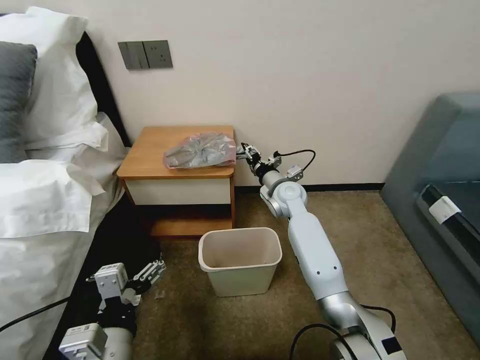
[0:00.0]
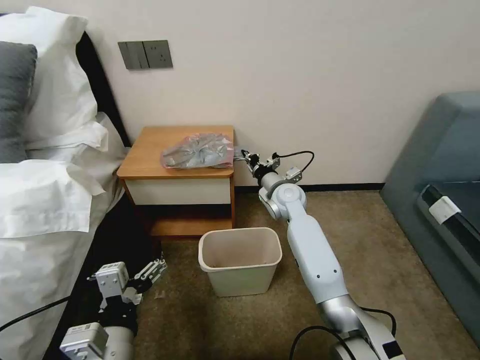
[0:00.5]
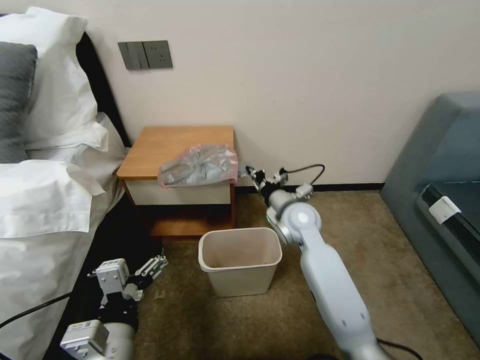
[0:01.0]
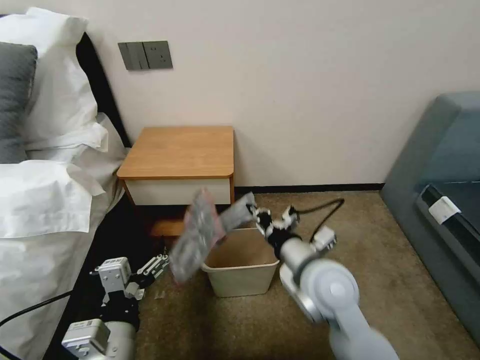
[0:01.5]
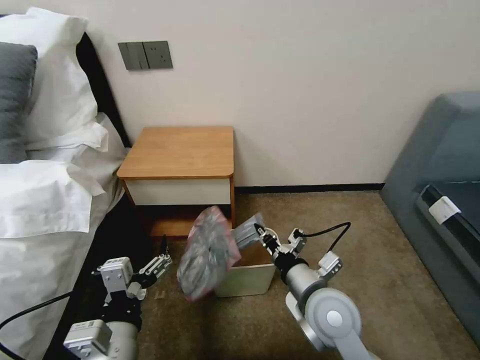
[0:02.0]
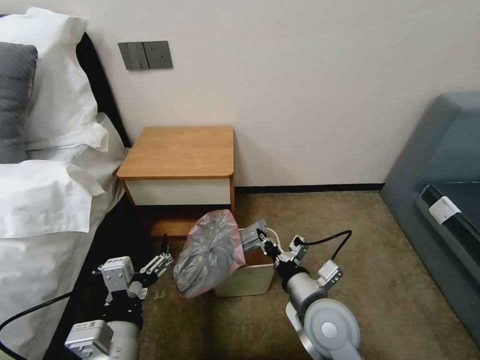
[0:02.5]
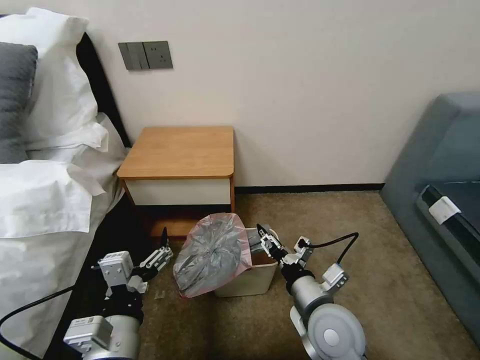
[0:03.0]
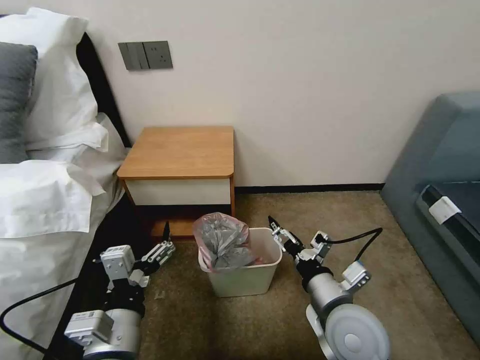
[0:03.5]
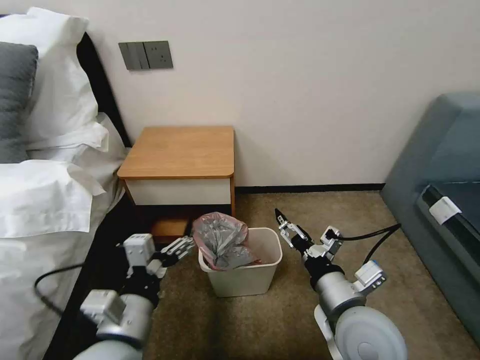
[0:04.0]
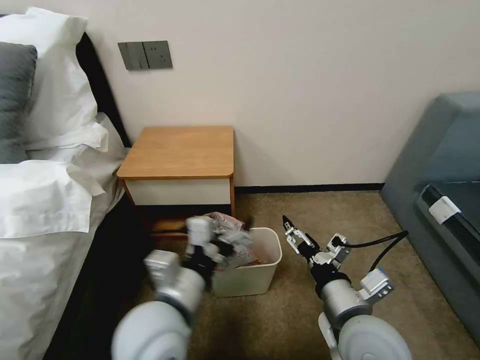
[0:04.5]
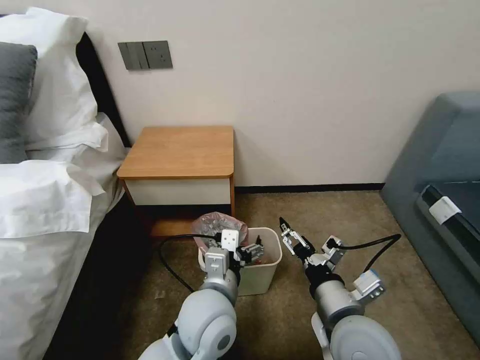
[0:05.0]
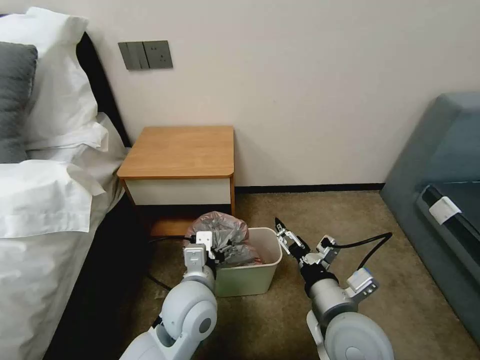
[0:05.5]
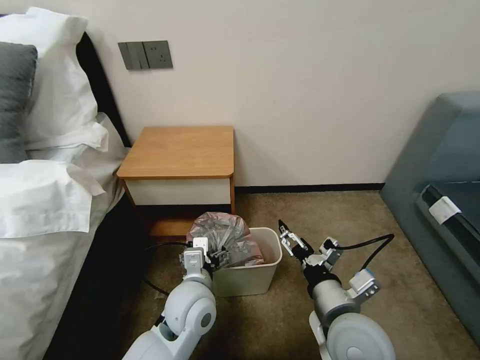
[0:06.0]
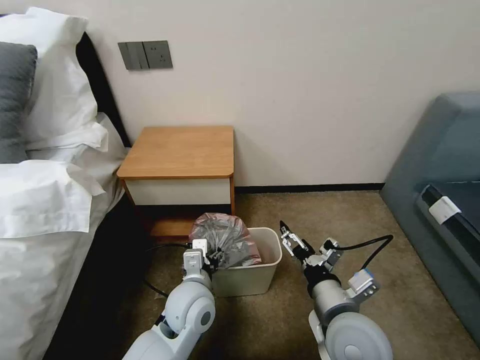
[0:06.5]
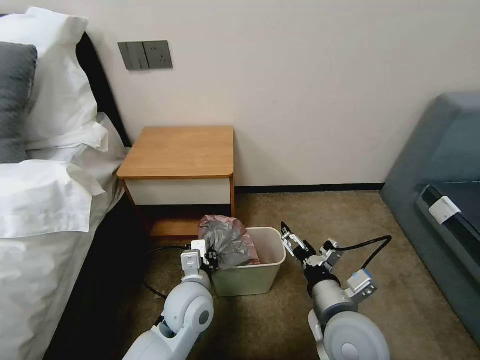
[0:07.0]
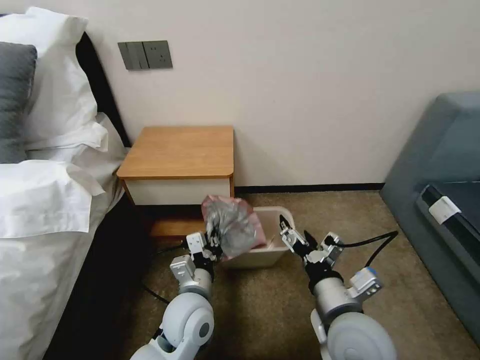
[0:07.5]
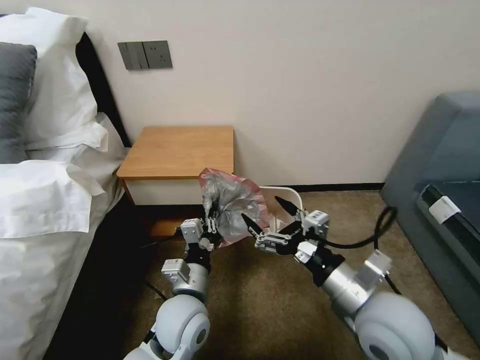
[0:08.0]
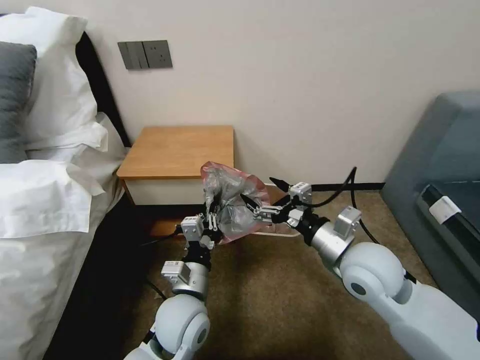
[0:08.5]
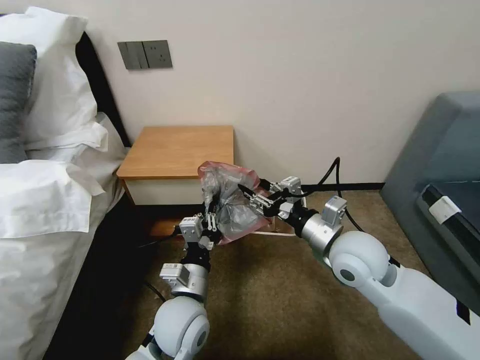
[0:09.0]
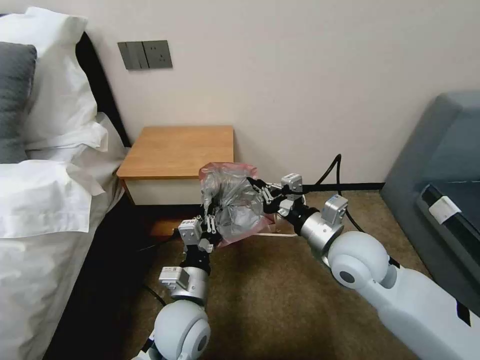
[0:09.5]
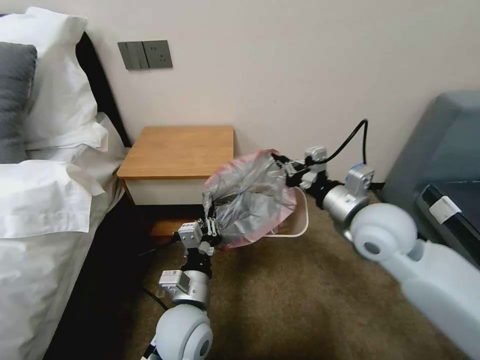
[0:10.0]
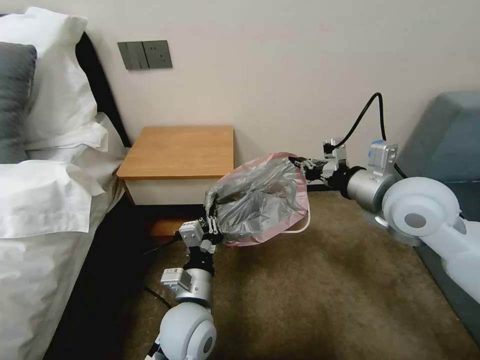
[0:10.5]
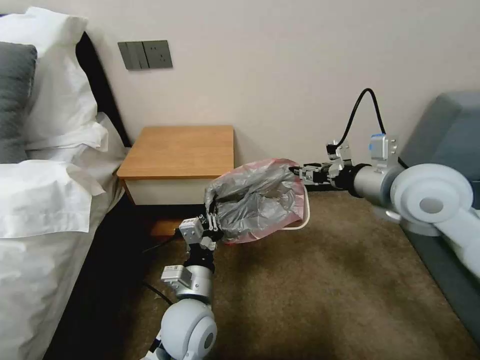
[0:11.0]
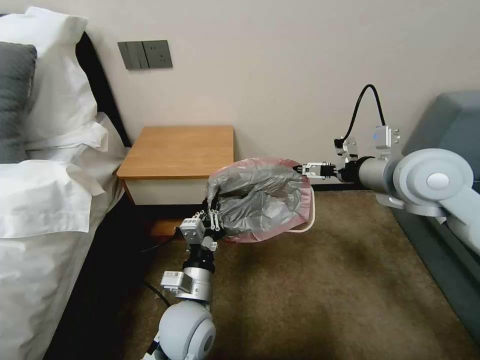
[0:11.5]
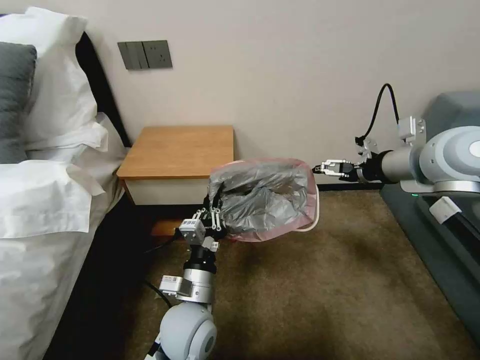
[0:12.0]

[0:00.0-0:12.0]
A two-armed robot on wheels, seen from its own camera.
Task of the whole recording: Pick up the garbage bag from the table and place it over the trash can.
0:00.0 to 0:02.0: The right gripper travels backward by roughly 30 cm, and closes its fingers.
0:02.0 to 0:04.0: The right gripper changes place by some 5 cm, and opens its fingers.
0:04.0 to 0:06.0: The left gripper is displaced forward, to the right and downward by some 15 cm.
0:06.0 to 0:08.0: The left gripper closes its fingers; the right gripper is displaced upward by some 5 cm.
0:08.0 to 0:10.0: The right gripper travels forward and upward by some 15 cm, and closes.
0:10.0 to 0:12.0: The right gripper moves upward, to the right and forward, about 15 cm, and opens up.

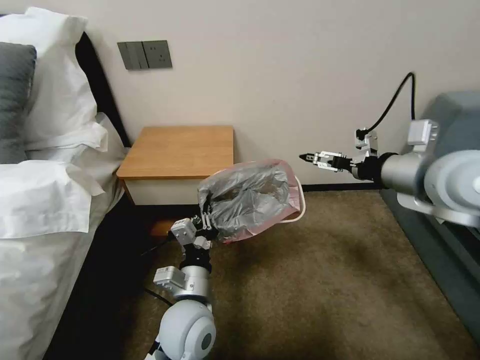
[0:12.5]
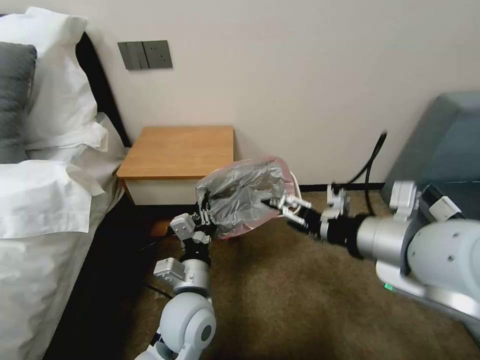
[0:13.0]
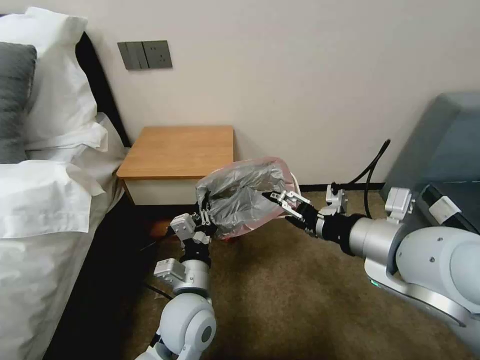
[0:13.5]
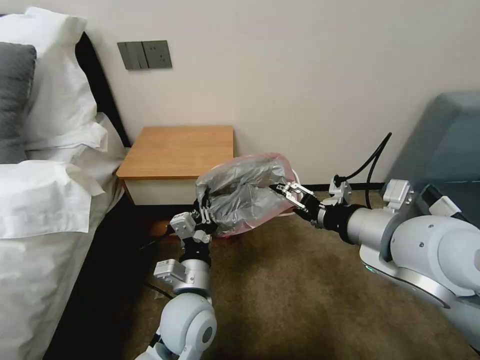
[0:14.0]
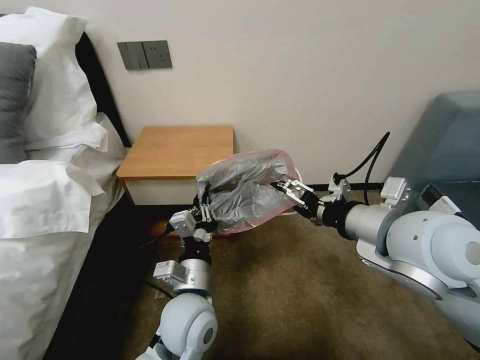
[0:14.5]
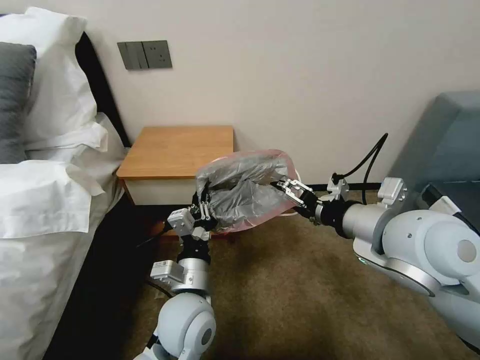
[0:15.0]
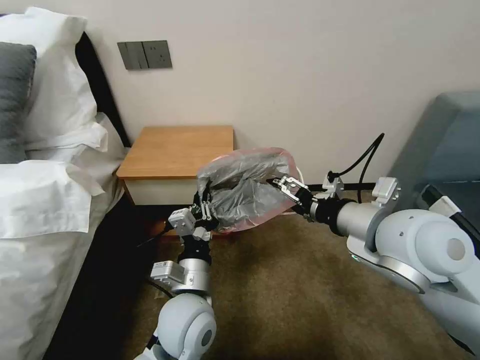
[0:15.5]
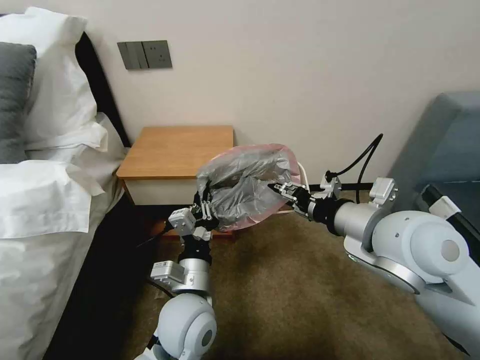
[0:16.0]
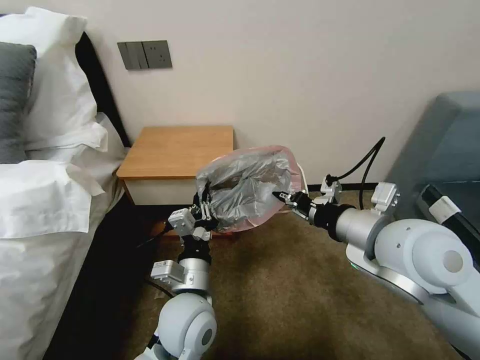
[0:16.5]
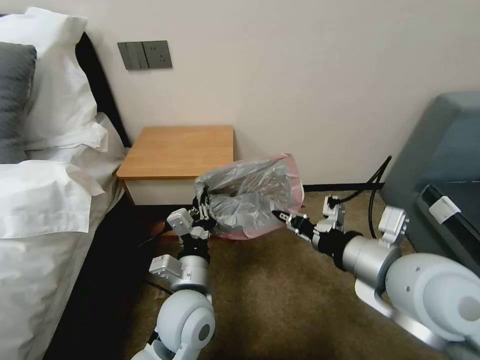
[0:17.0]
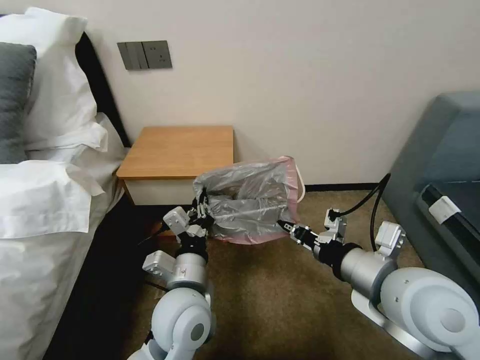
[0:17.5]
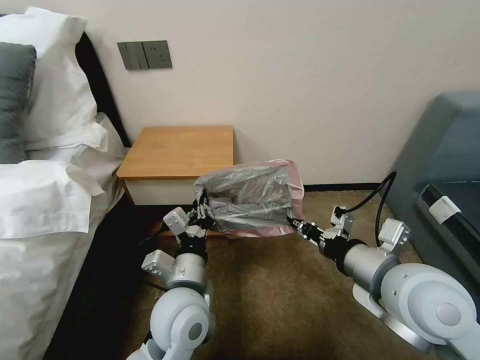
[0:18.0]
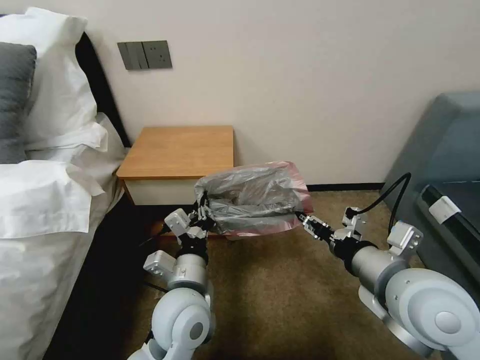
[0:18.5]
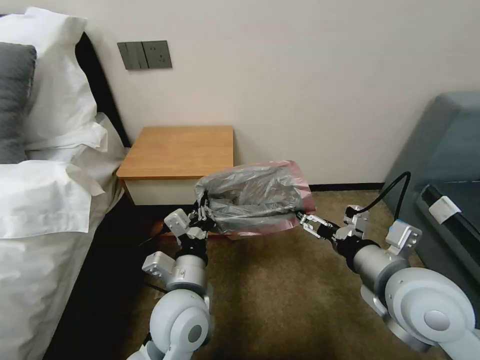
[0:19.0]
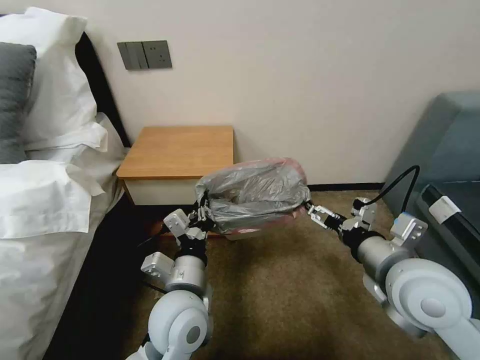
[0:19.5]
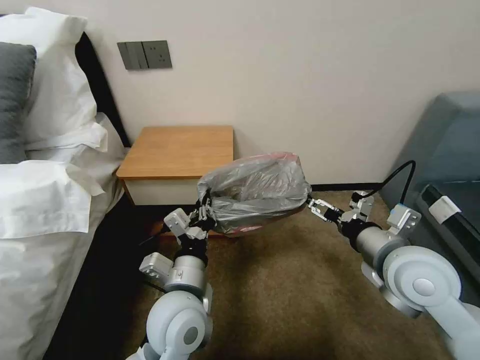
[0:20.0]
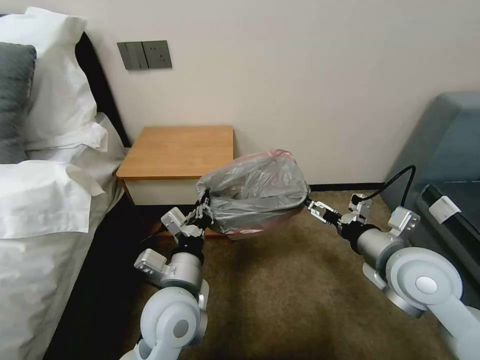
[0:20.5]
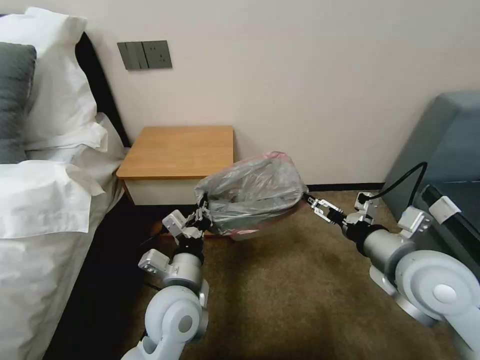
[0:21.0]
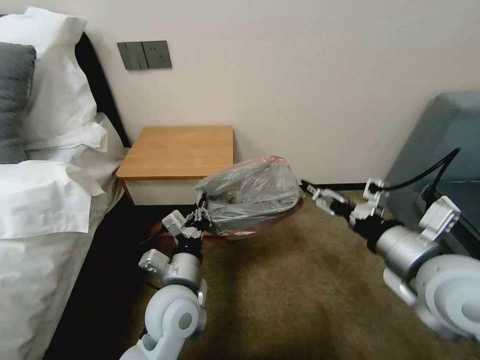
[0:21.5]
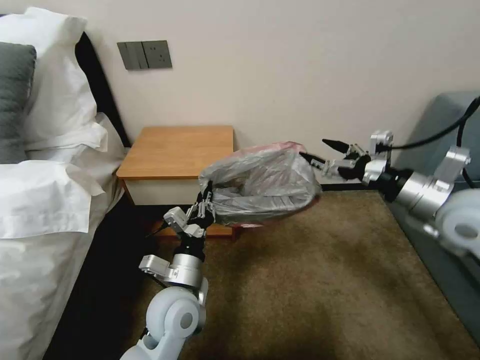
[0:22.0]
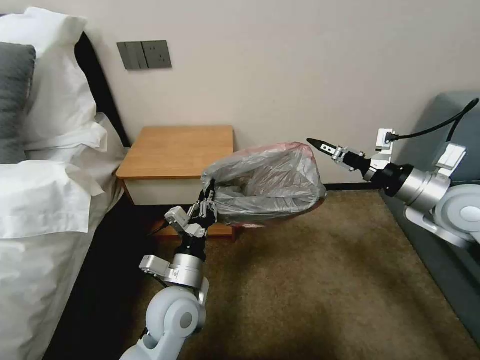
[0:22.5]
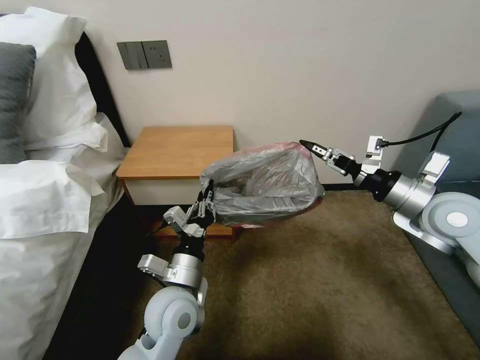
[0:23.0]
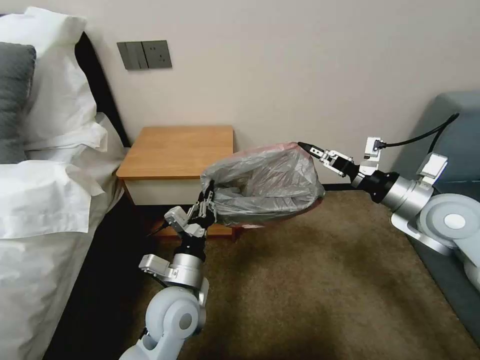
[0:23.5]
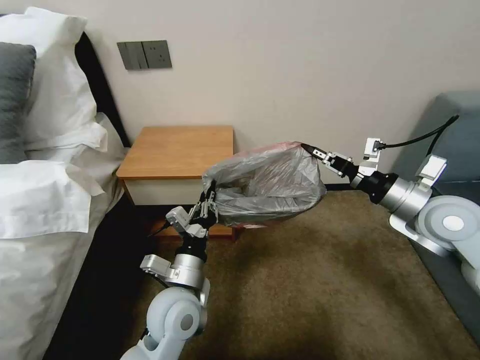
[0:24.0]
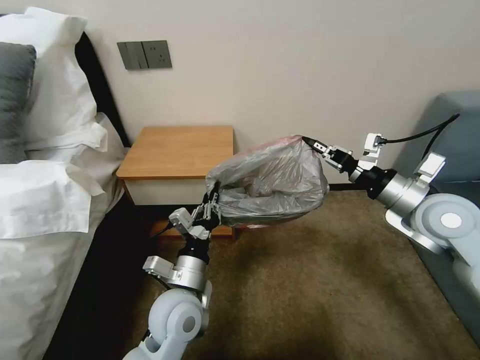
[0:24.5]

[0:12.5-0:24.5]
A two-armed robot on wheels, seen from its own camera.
Task of the whole recording: Pick up the garbage bag from the table and place it over the trash can.
0:12.5 to 0:14.5: The right gripper heads to the left and backward, covering roughly 10 cm.
0:14.5 to 0:16.5: The right gripper closes.
0:16.5 to 0:18.5: The right gripper travels downward by approximately 5 cm, and opens up.
0:18.5 to 0:20.5: The right gripper travels forward by some 5 cm, and opens its fingers.
0:20.5 to 0:22.5: The right gripper is displaced to the right, forward and upward by some 15 cm.
0:22.5 to 0:24.5: The right gripper closes up.

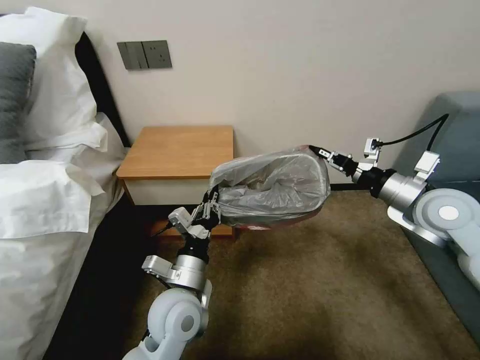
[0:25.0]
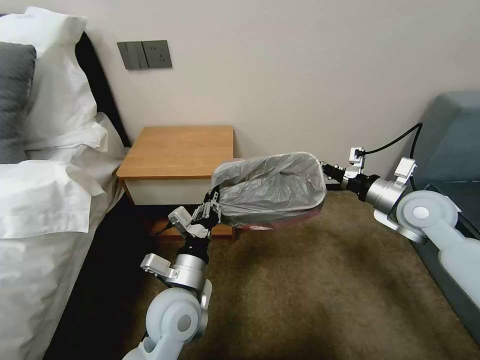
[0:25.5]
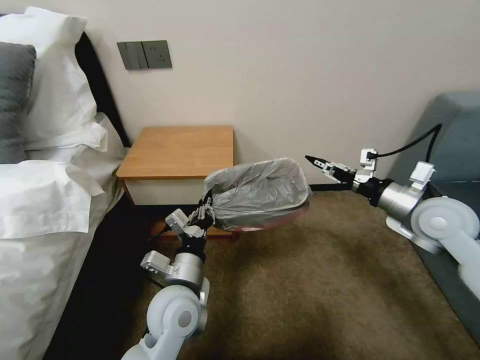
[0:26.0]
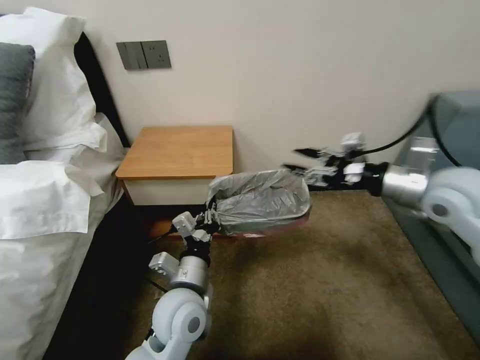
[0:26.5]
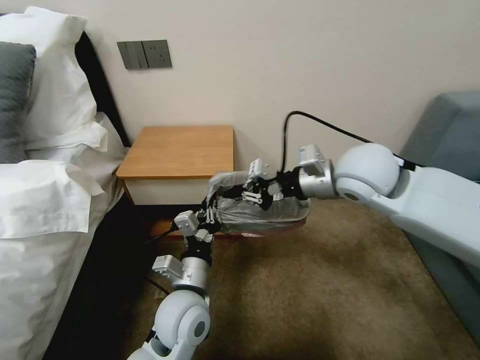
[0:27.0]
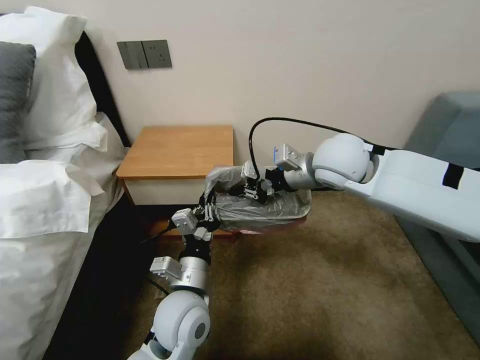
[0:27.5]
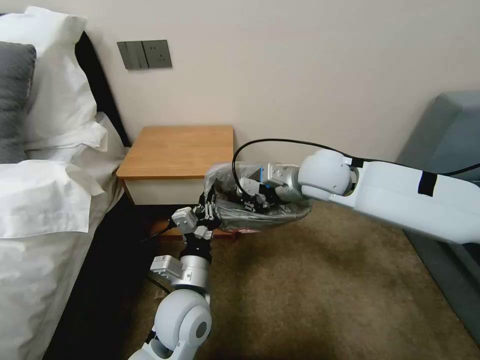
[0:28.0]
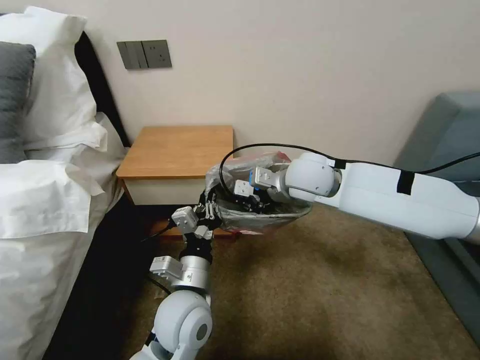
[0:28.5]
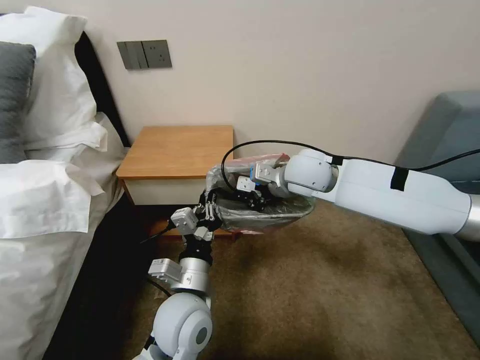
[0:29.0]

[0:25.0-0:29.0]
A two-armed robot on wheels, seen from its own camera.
Task of the whole recording: Pick up the garbage bag from the table and place it over the trash can.
0:25.0 to 0:27.0: The right gripper goes approximately 20 cm to the left and upward, and opens, then closes again.
0:27.0 to 0:29.0: The right gripper travels to the left, forward and downward by roughly 10 cm.
